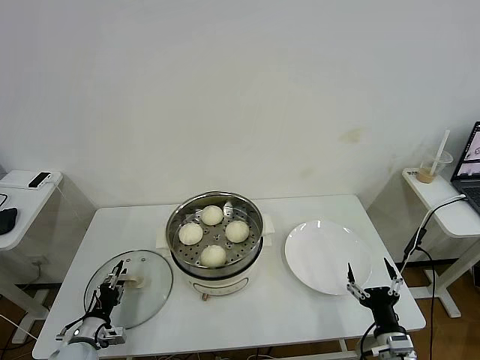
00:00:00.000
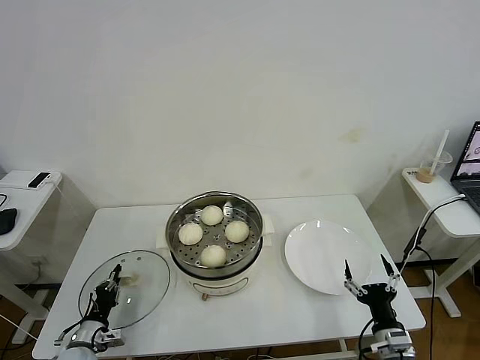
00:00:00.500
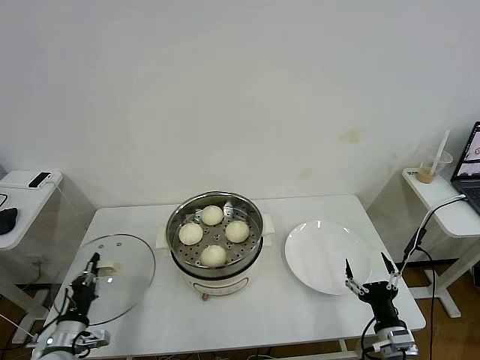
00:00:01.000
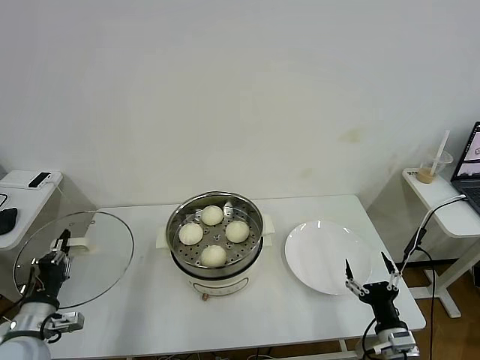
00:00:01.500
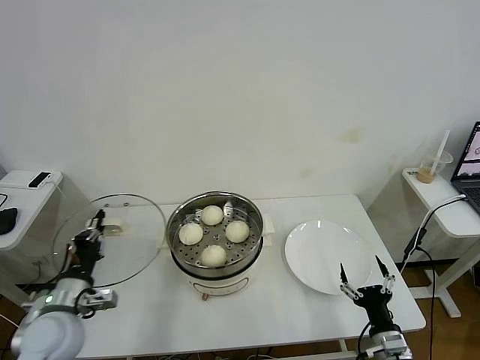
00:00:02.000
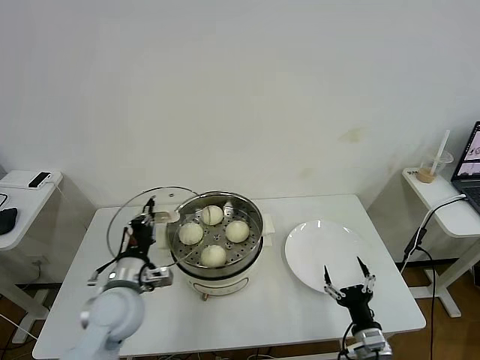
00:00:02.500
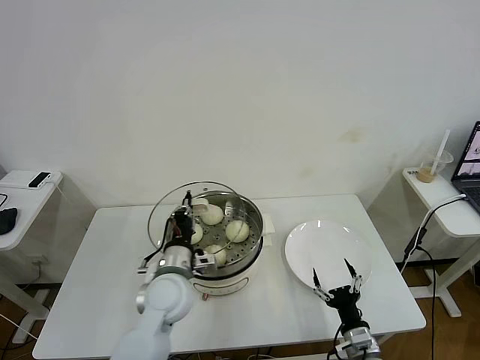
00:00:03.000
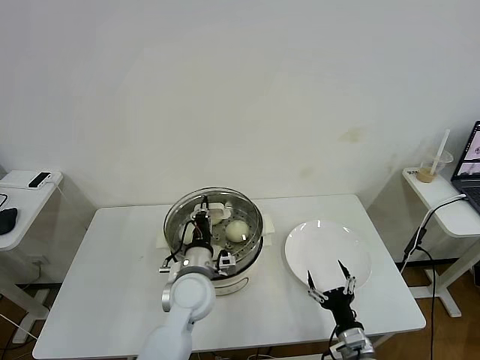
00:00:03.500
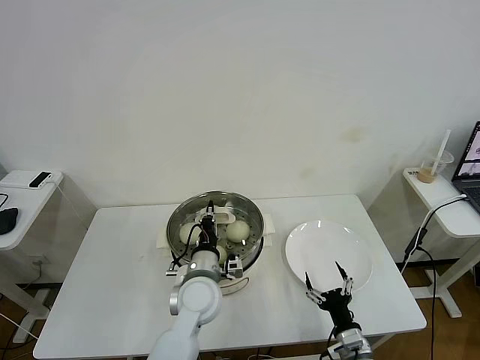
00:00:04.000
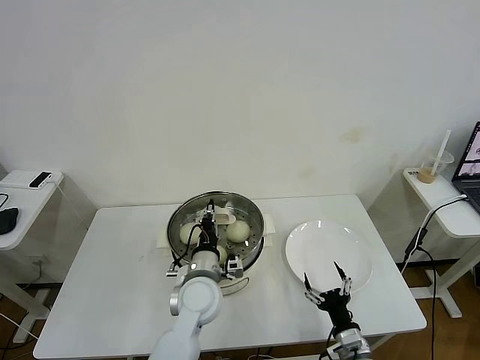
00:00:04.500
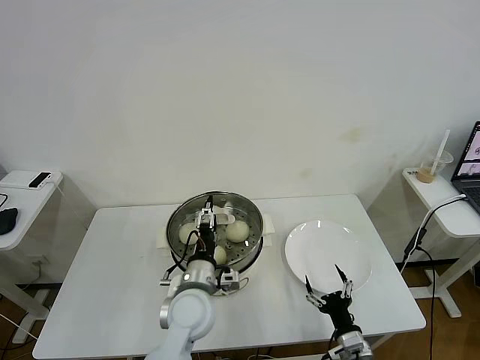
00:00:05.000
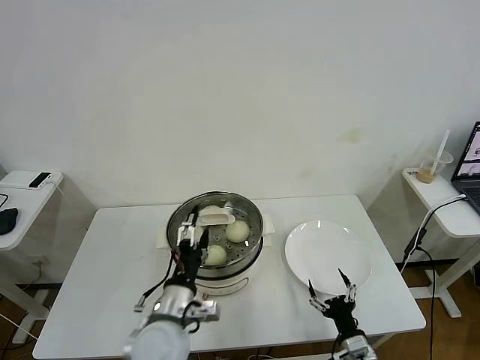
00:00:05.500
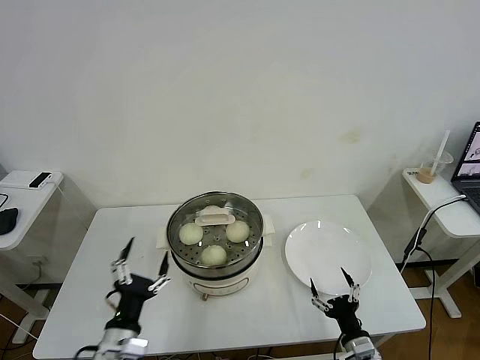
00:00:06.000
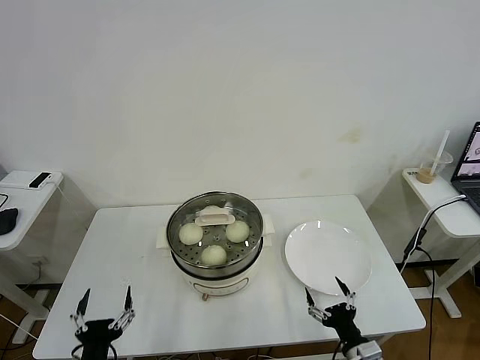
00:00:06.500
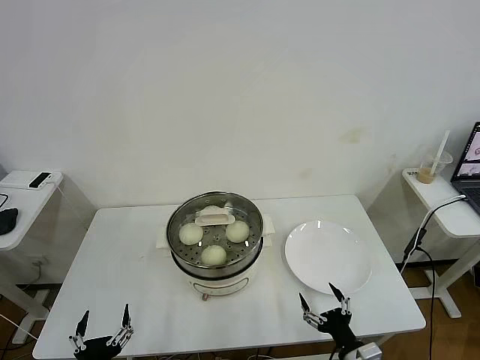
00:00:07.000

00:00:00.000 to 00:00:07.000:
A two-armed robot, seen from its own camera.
Task of the whole recording: take steamed baozi put them in steamer then cover it.
Step, 00:00:01.000 to 00:00:05.000: Place the pot lid on the steamer with left gripper.
00:00:00.000 to 00:00:02.000: The left gripper shifts some 20 cm upward, and closes its fingers.
00:00:02.000 to 00:00:03.500: The left gripper heads to the right, covering roughly 25 cm. Meanwhile the right gripper is displaced to the left by some 5 cm.
00:00:03.500 to 00:00:05.000: The left gripper opens.
00:00:05.000 to 00:00:07.000: The right gripper shifts by roughly 5 cm. Meanwhile the left gripper is displaced backward and to the left by about 30 cm.
